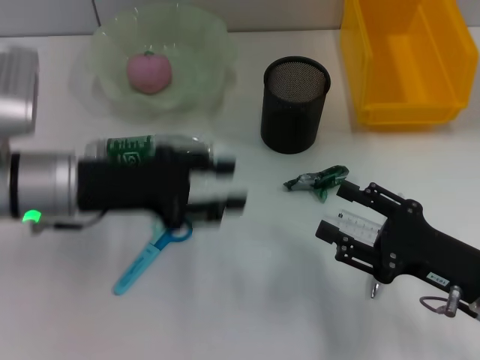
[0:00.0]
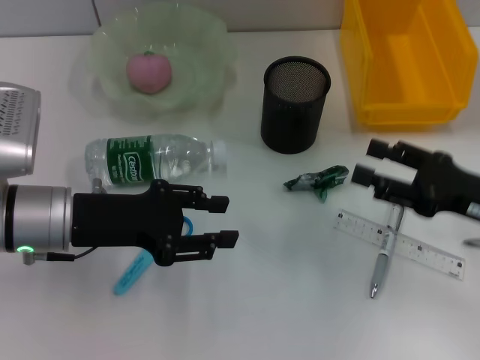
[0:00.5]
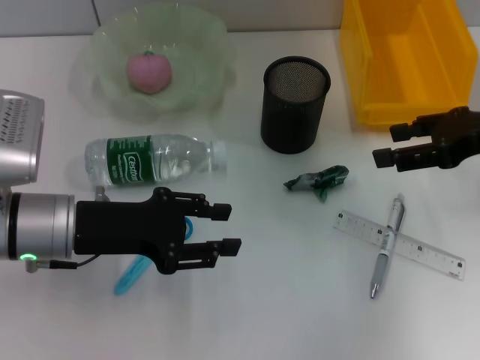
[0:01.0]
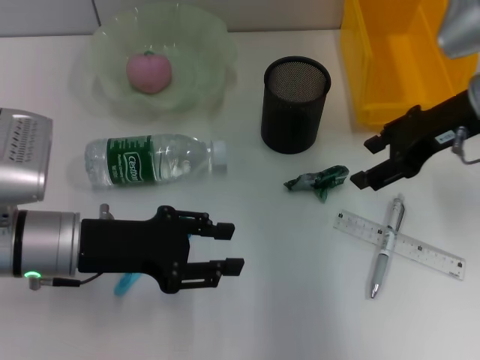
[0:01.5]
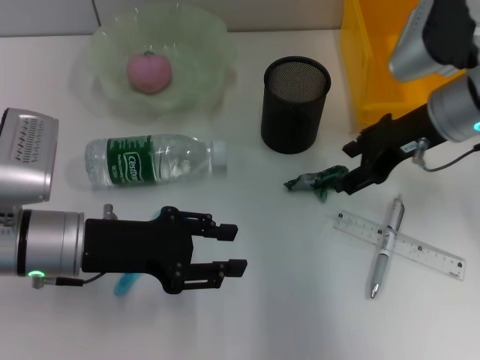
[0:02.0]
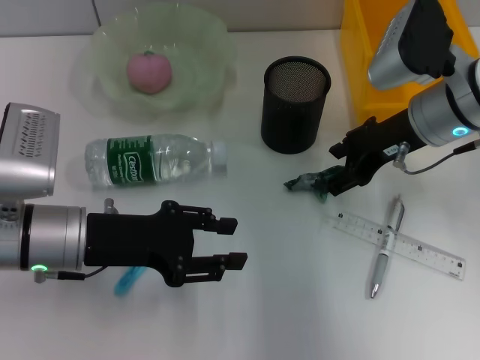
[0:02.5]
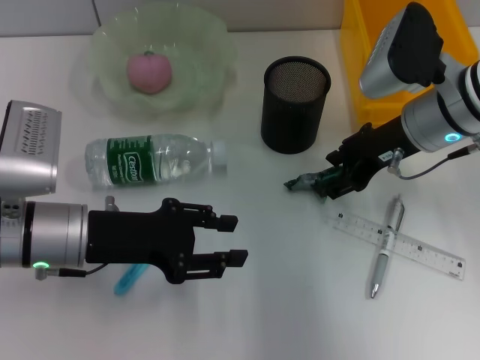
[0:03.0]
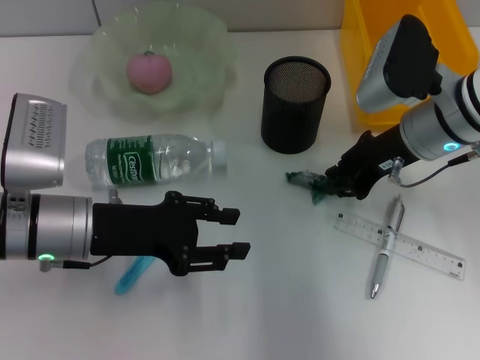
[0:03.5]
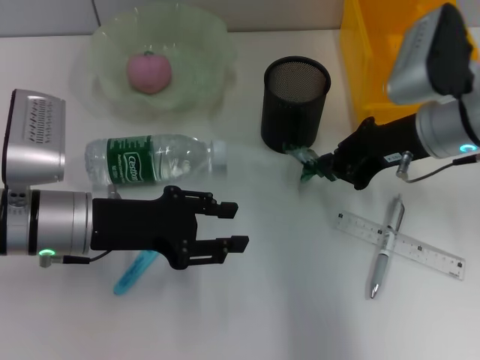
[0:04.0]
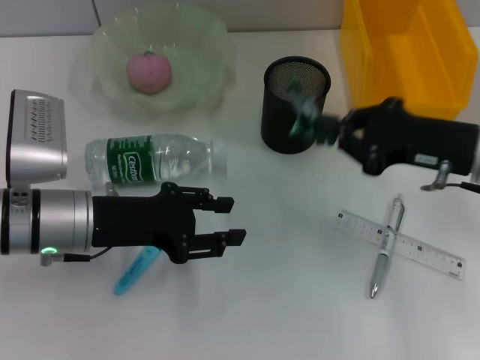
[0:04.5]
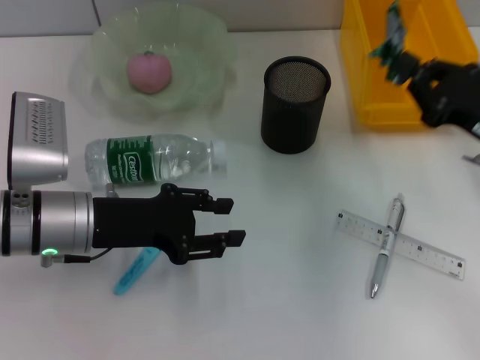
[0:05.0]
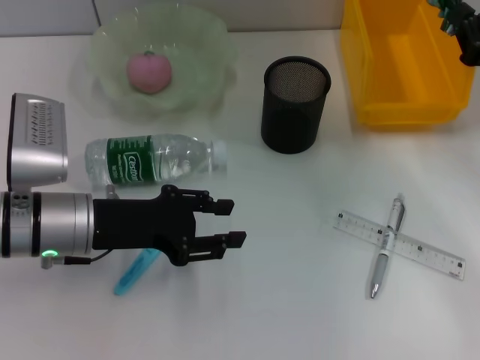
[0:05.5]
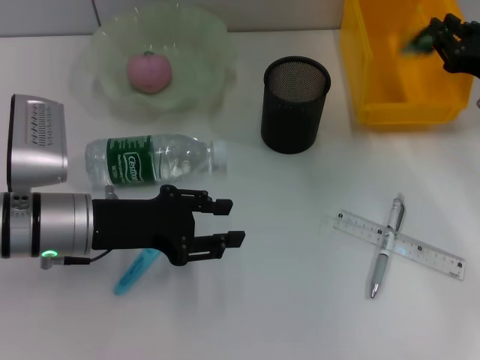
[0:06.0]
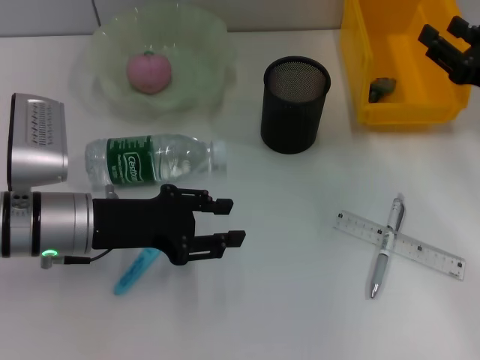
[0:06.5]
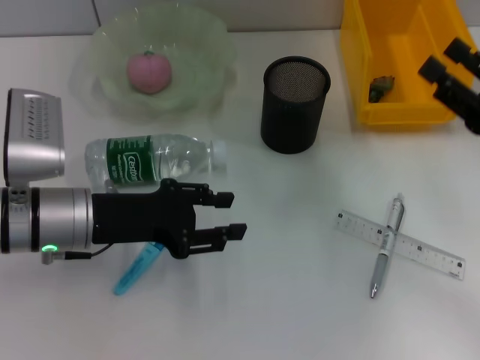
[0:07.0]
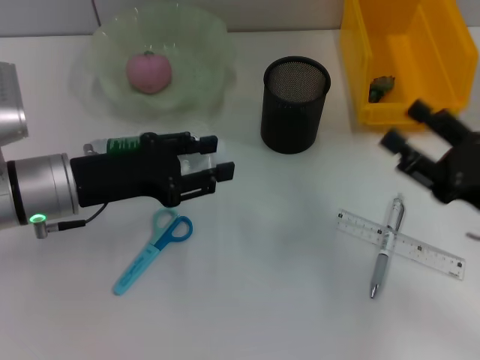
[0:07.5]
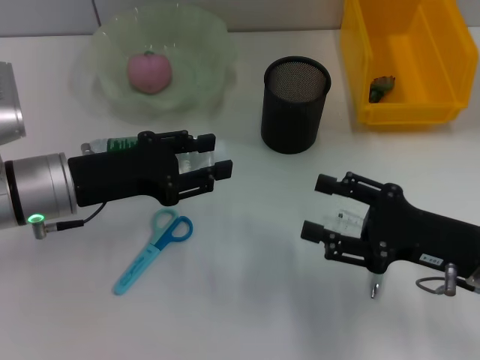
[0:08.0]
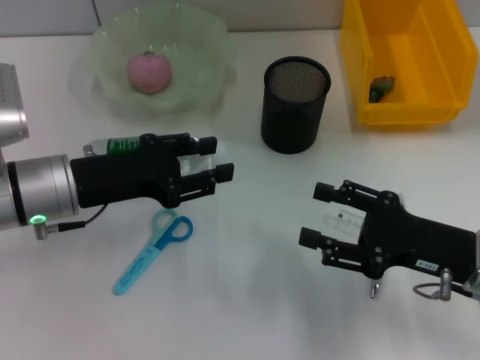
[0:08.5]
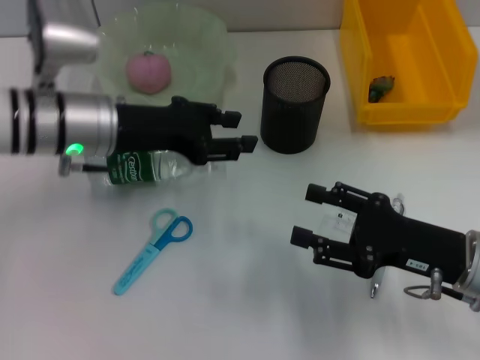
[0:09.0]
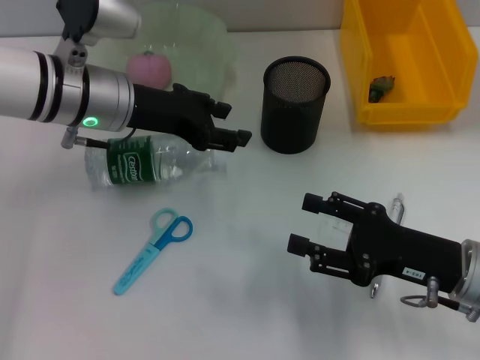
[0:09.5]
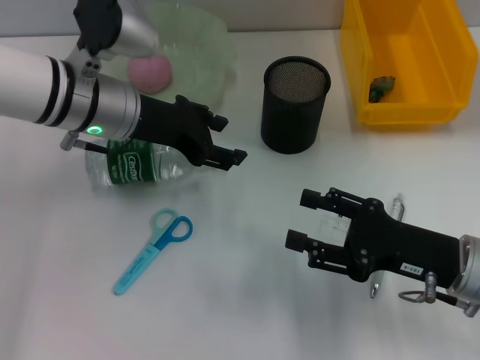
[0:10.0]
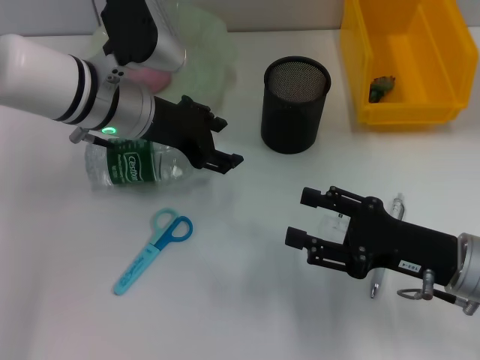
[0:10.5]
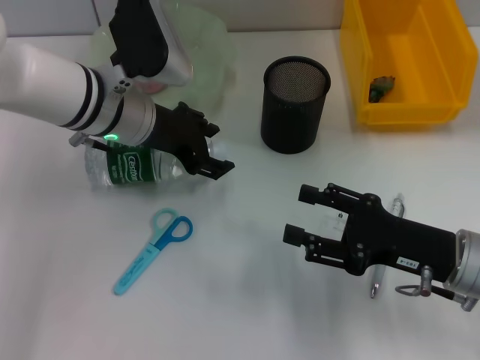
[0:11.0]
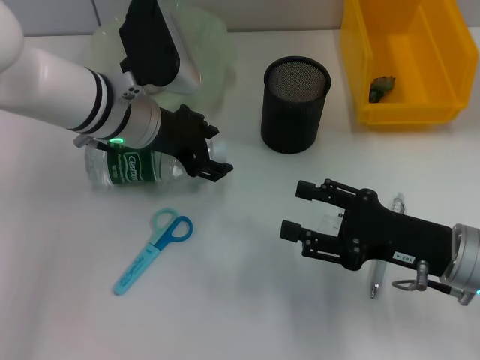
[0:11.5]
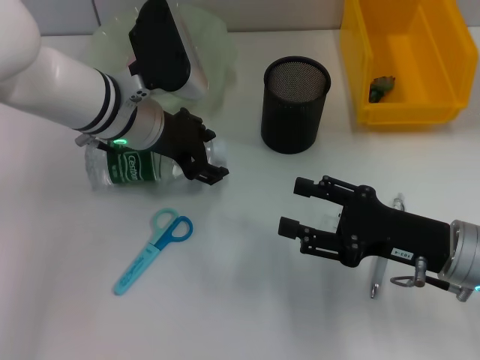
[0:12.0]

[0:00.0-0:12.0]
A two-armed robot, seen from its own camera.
Step, 0:00.0 to 0:03.0: Grab the plastic with the right hand.
Step, 0:04.0 to 0:06.5: Place the plastic into the trash can with the right hand.
0:00.0 to 0:02.0: The right gripper is displaced forward and upward by roughly 20 cm.
0:02.0 to 0:04.0: The right gripper closes.
0:04.0 to 0:06.0: The right gripper is displaced to the right by about 10 cm.
0:06.0 to 0:08.0: The right gripper is displaced backward and to the left by approximately 15 cm, and opens.
0:08.0 to 0:10.0: The left gripper goes roughly 10 cm forward and to the right.

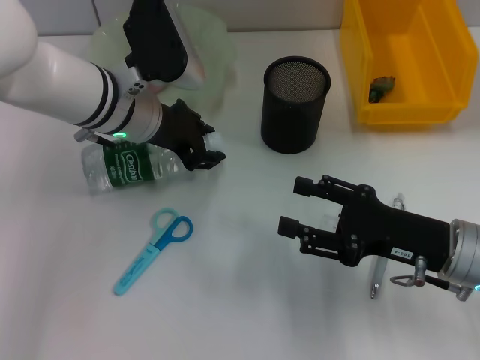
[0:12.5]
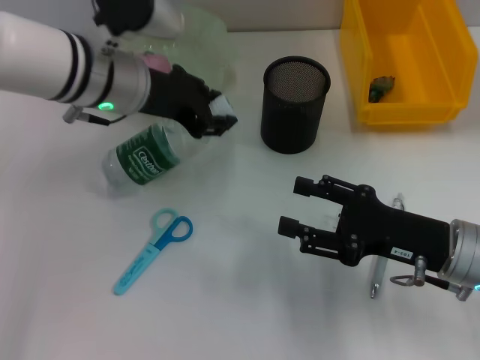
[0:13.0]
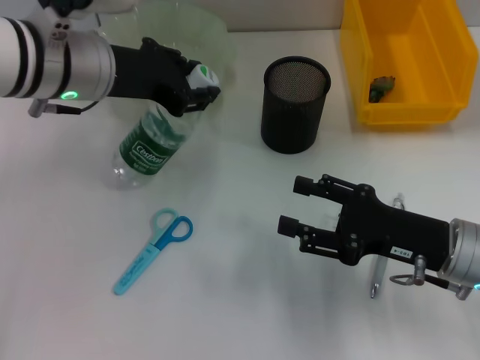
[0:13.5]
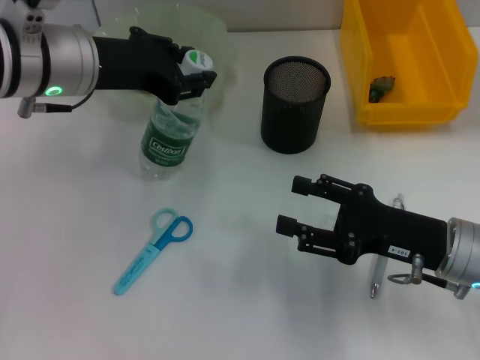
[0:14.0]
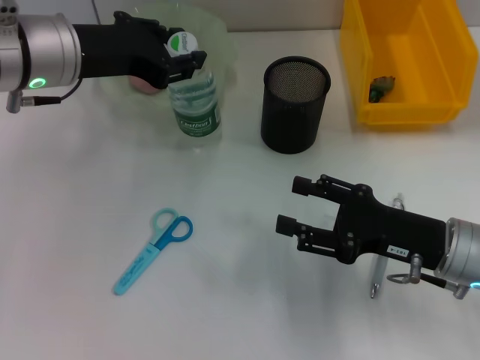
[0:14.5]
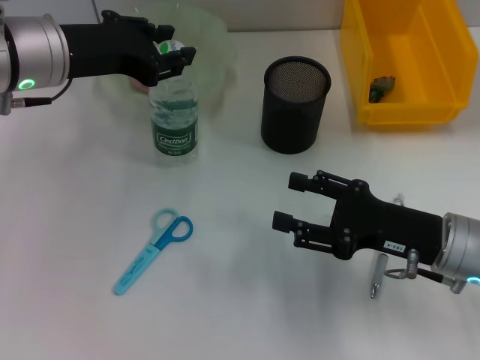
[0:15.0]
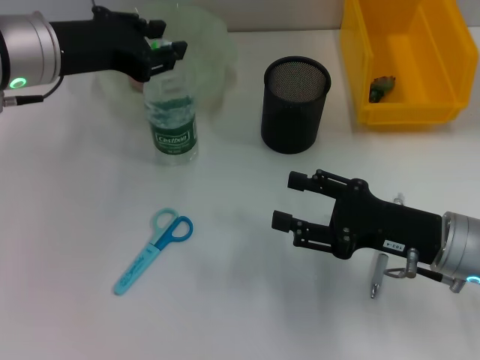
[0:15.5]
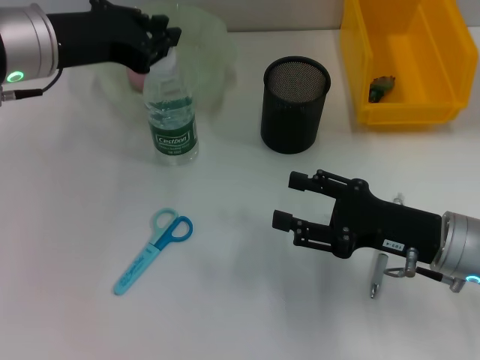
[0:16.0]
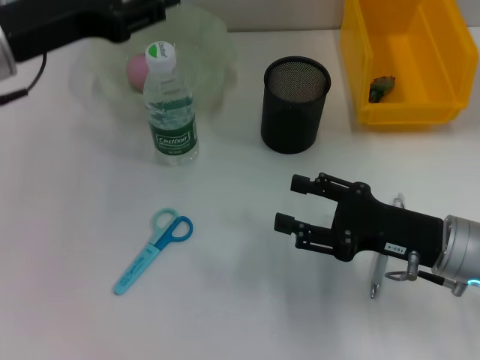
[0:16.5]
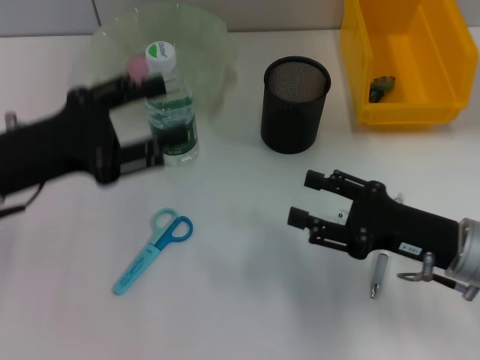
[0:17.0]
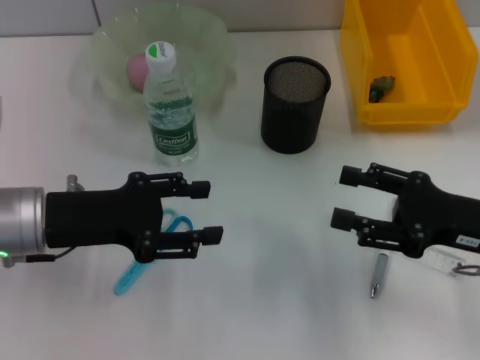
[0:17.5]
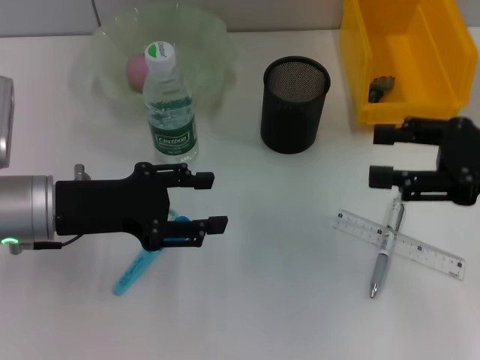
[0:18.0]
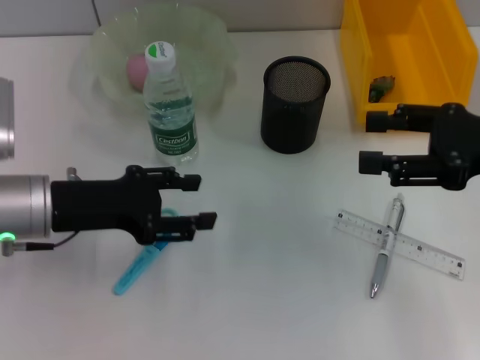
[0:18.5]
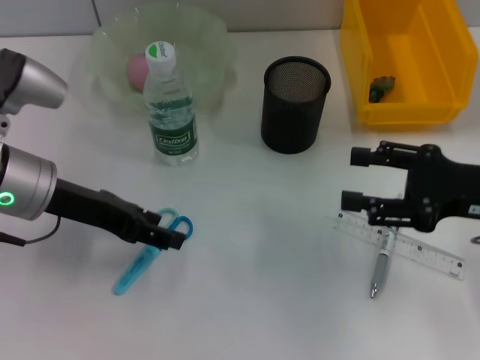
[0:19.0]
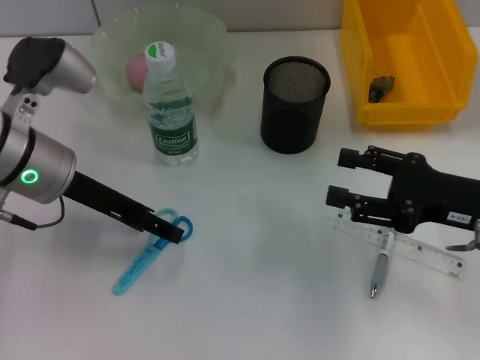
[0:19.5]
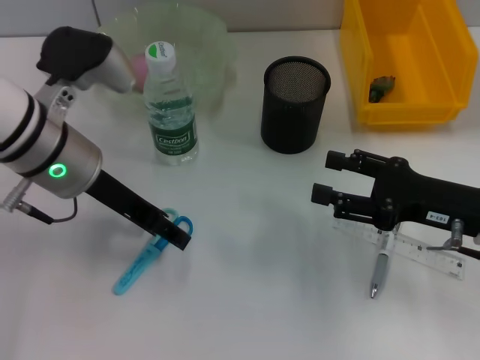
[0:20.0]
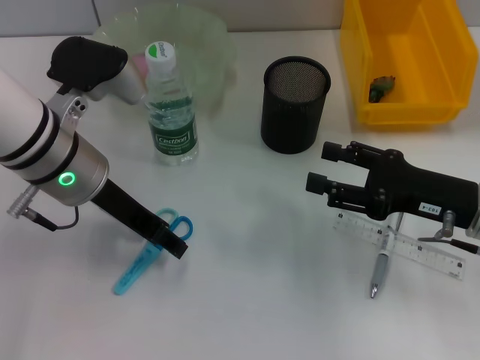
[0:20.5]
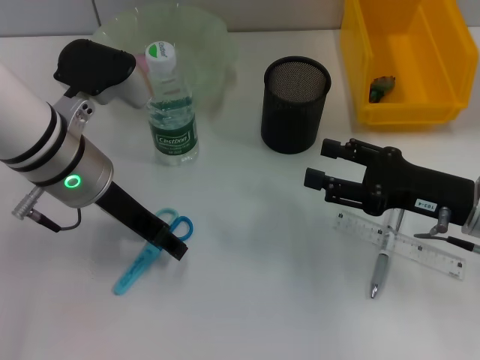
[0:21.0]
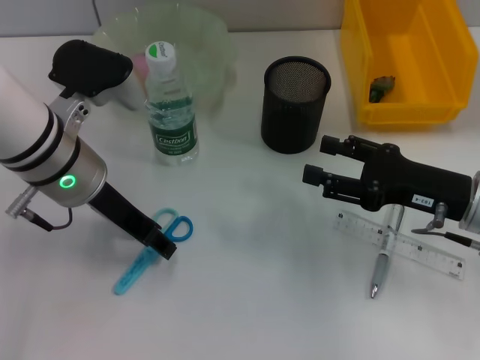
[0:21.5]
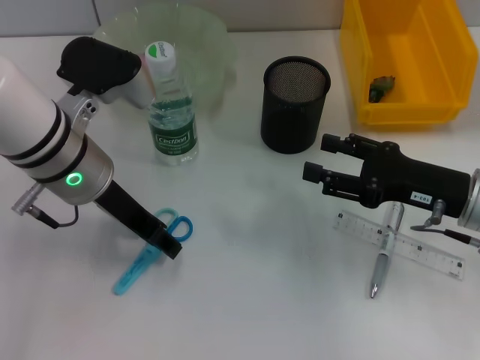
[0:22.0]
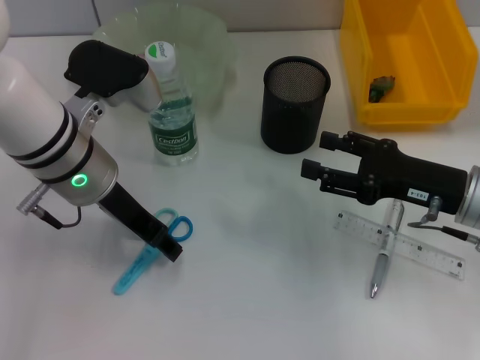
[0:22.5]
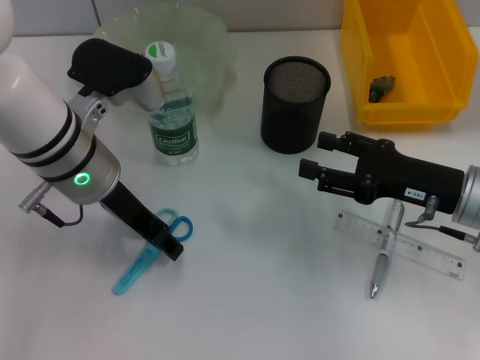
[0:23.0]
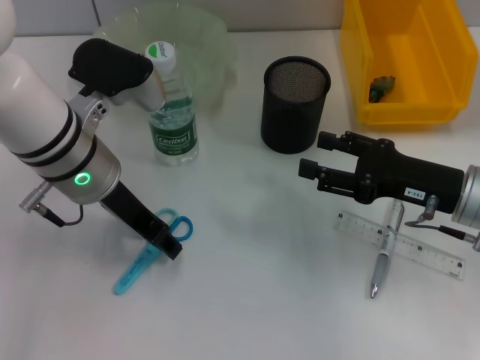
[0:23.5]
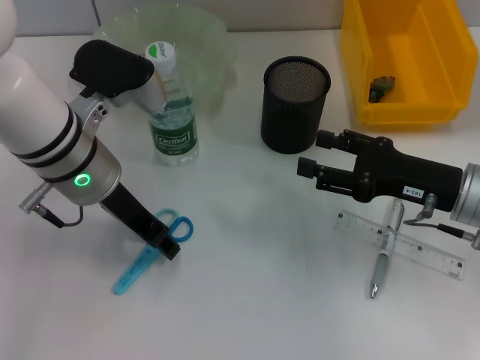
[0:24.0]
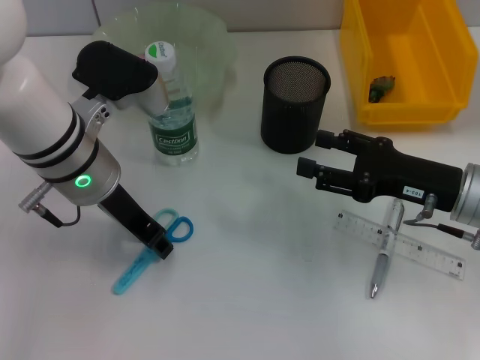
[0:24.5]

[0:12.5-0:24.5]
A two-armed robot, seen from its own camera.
Step, 0:12.5 to 0:15.5: Place the water bottle on the table with the left hand.
0:12.5 to 0:14.5: The left gripper travels upward and to the left by approximately 10 cm.
0:14.5 to 0:16.5: The left gripper ends up approximately 5 cm from where it was.
0:16.5 to 0:18.5: The left gripper shifts roughly 10 cm downward. The right gripper moves upward and to the right, some 15 cm.
0:18.5 to 0:20.5: The left gripper is displaced to the right by about 5 cm. Meanwhile the right gripper shifts about 10 cm downward.
0:20.5 to 0:22.5: The grippers stay close to where they were, moving slightly.
0:22.5 to 0:24.5: The two grippers keep their place.

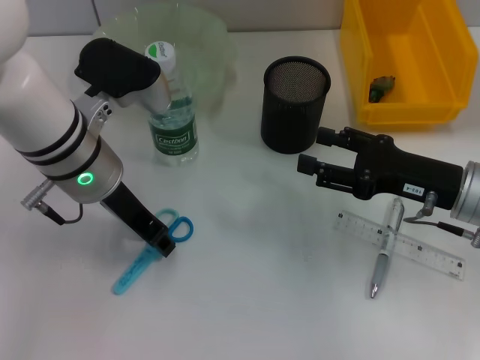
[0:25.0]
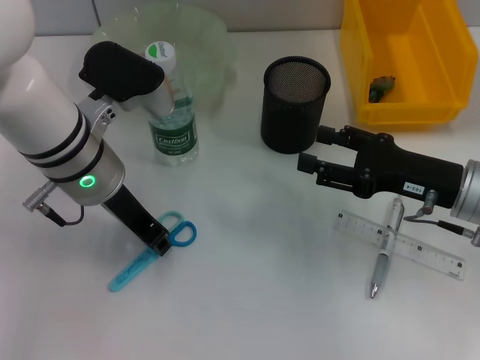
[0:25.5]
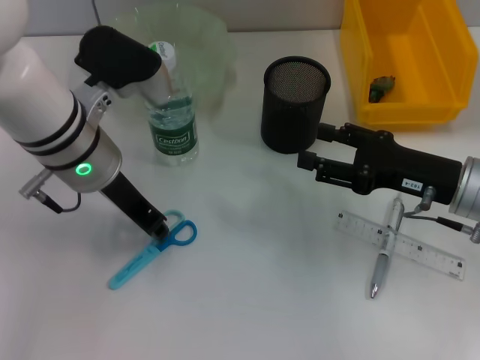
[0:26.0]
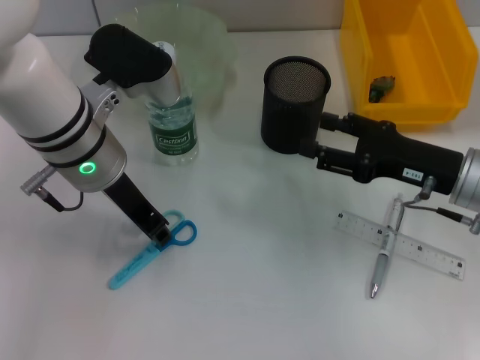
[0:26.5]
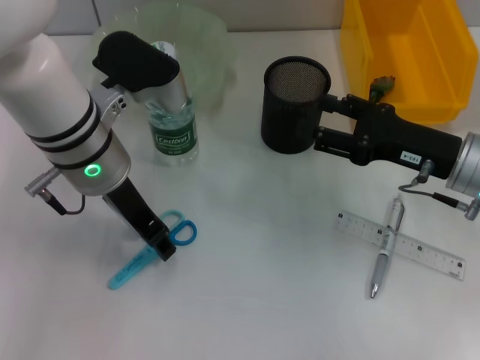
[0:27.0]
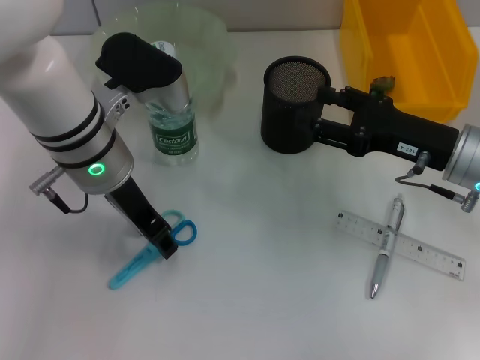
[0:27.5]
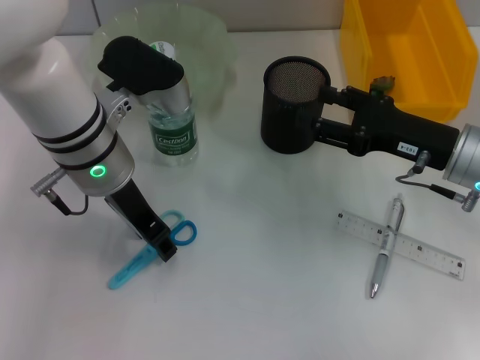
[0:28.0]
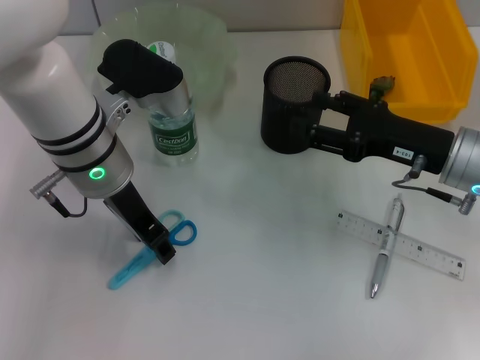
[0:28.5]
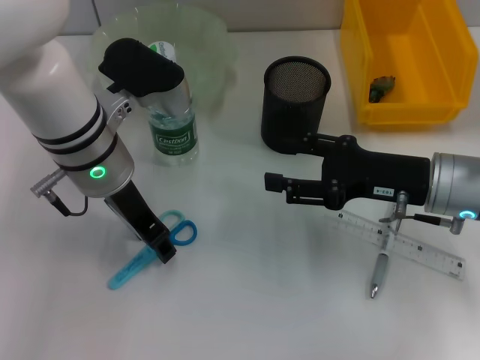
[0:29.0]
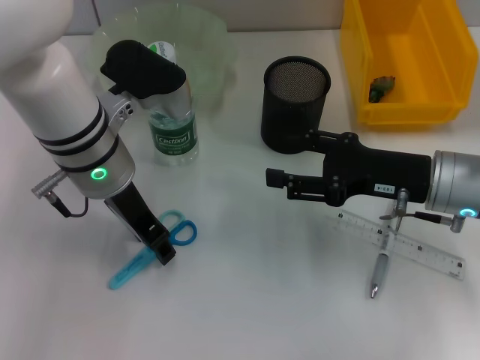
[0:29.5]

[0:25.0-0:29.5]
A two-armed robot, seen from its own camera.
0:25.0 to 0:29.5: The grippers stay close to where they were, moving slightly.
